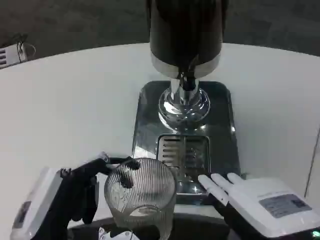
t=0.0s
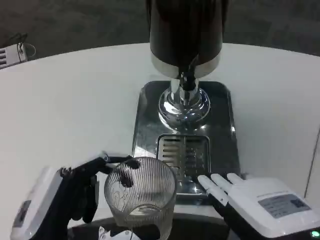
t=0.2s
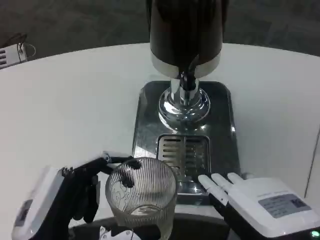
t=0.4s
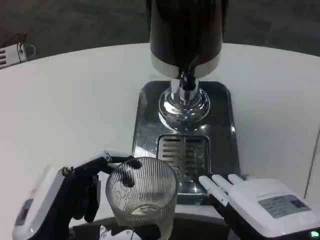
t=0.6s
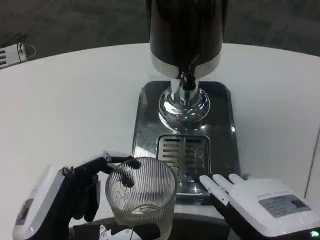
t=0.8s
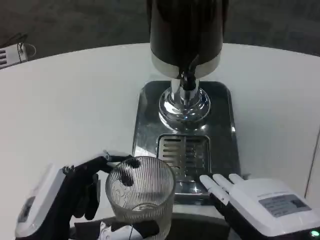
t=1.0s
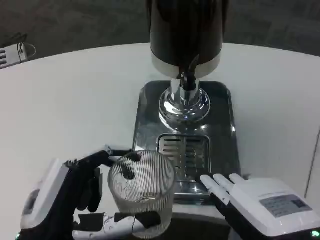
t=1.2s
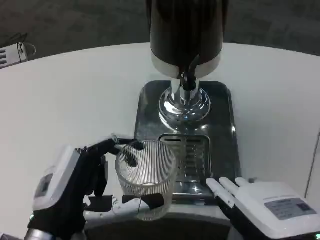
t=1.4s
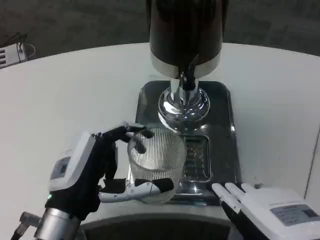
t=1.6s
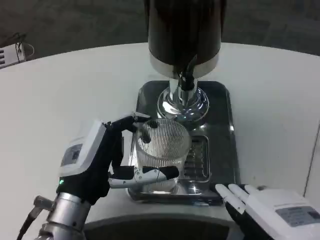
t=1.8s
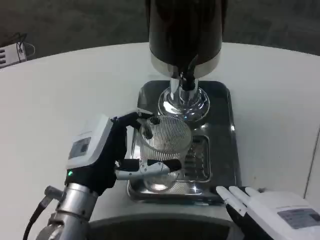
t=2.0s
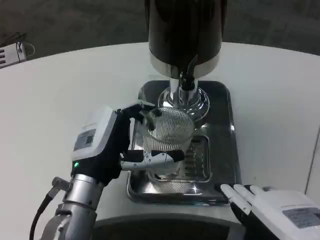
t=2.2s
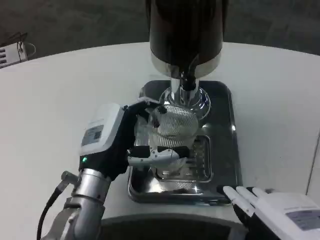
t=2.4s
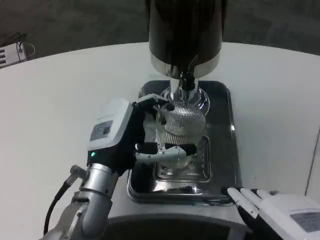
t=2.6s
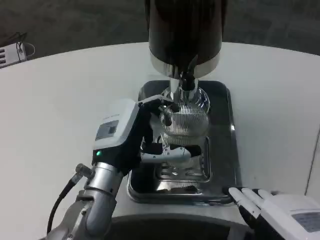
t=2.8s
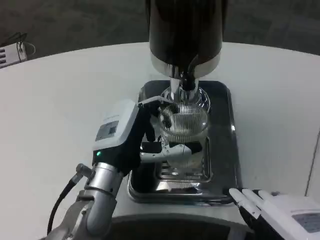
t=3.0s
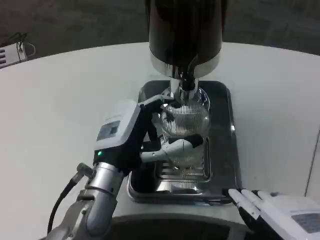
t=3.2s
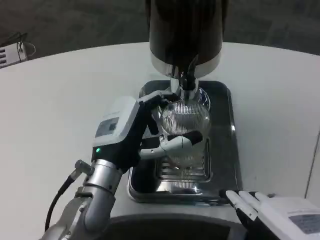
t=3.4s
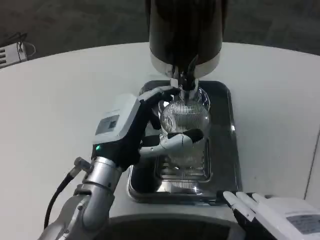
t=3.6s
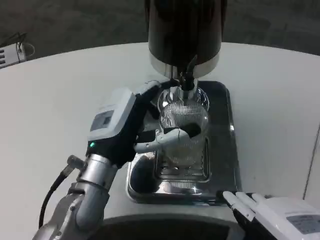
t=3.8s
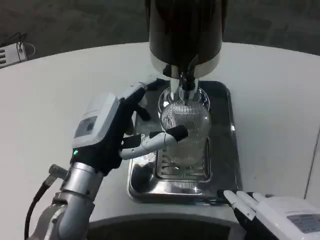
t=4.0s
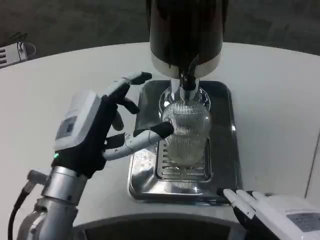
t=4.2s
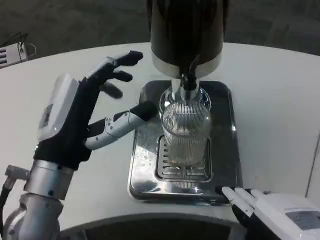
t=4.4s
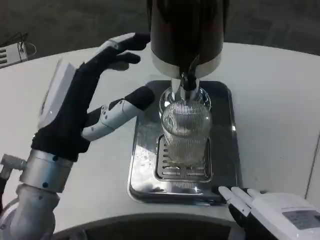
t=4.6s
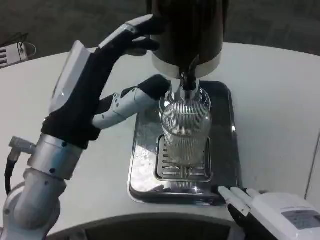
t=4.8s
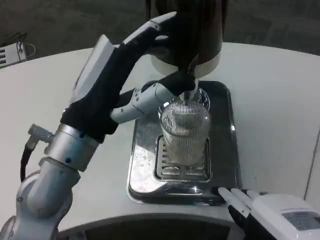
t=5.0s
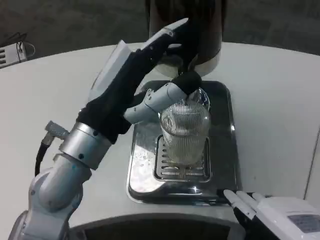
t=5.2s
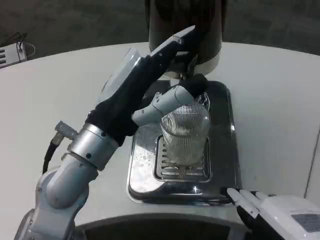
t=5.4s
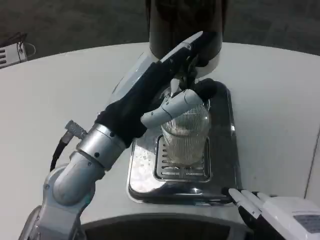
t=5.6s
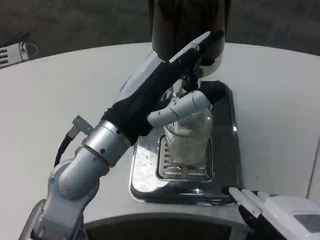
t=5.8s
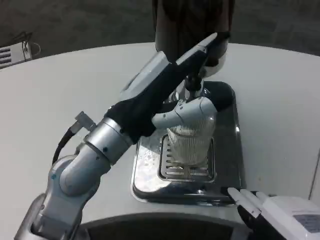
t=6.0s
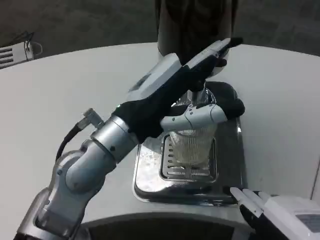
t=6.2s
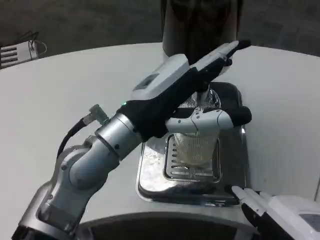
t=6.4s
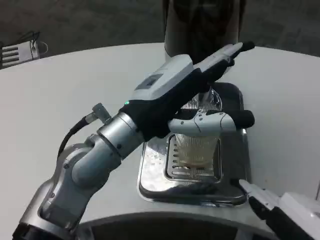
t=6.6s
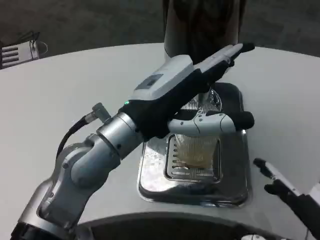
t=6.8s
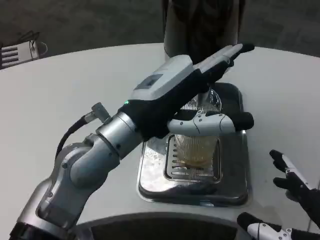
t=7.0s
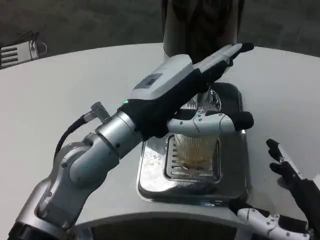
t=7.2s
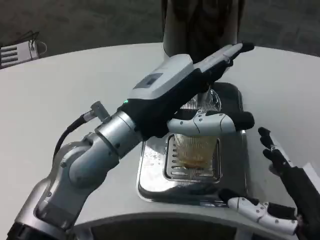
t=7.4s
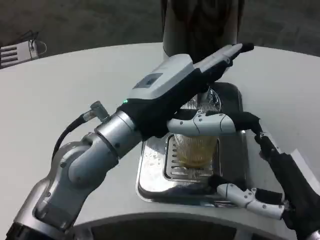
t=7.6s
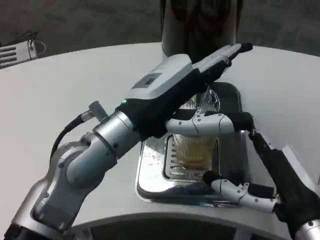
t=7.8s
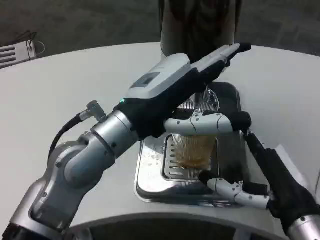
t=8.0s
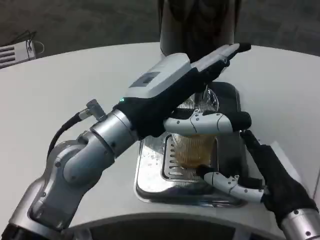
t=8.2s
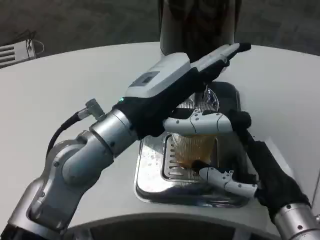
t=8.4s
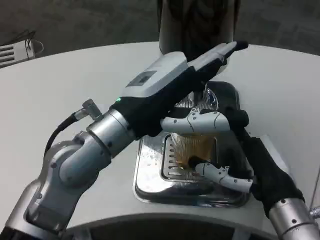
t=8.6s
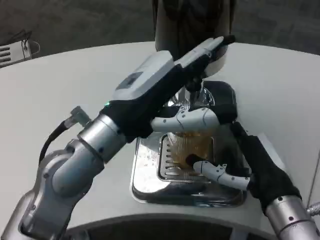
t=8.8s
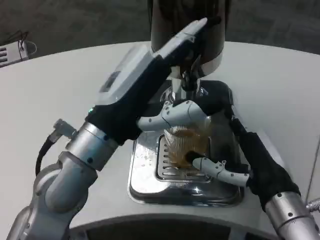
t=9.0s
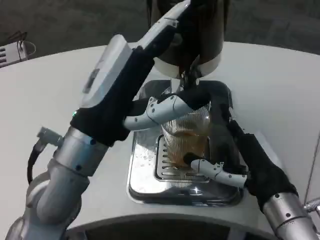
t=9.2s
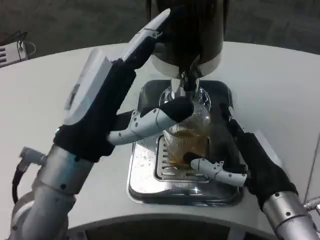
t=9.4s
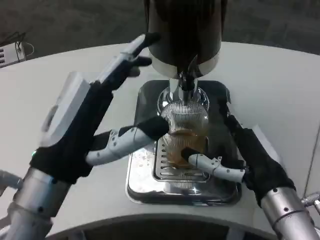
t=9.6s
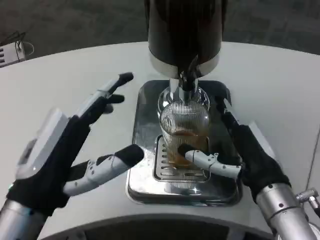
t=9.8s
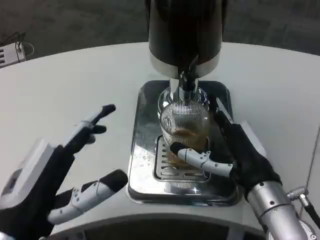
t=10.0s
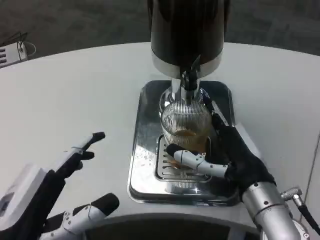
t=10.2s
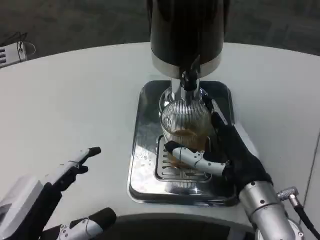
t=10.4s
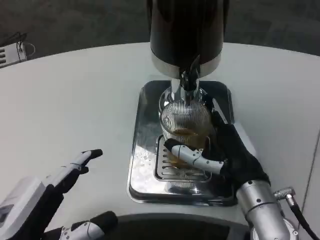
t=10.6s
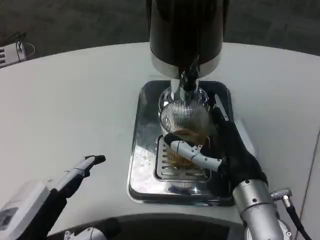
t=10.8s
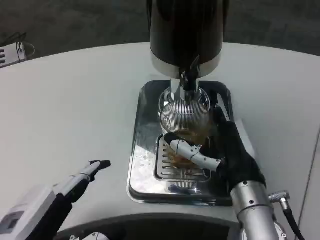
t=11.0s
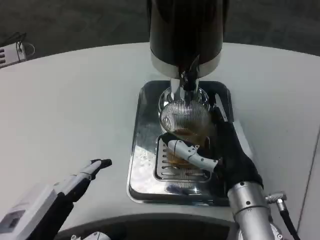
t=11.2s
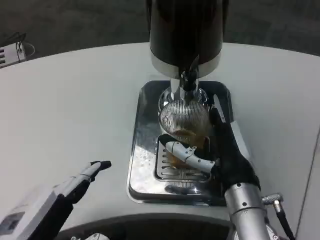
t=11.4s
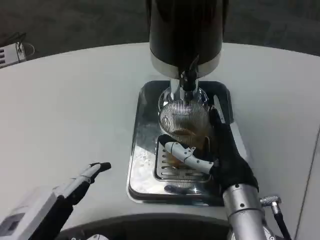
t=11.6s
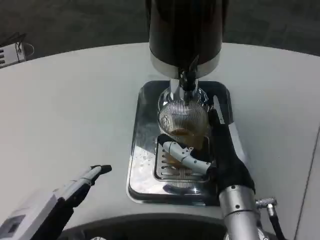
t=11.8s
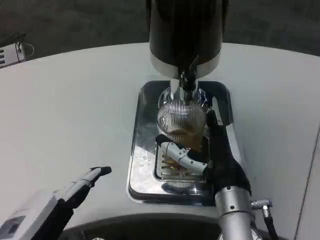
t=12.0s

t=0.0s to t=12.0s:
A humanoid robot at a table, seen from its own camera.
Task of the whole recording: Grasp the cup under the faucet to collect the drink, then remove the cup.
t=0.0s to t=1.6s: The left hand shifts about 10 cm forward.
t=1.6s to t=3.0s: The left hand is displaced forward by roughly 5 cm.
t=3.0s to t=4.4s: The left hand goes roughly 5 cm backward.
t=4.4s to t=6.0s: The left hand shifts by approximately 10 cm.
t=6.0s to t=7.6s: The right hand is displaced forward by approximately 5 cm.
t=7.6s to t=9.0s: The right hand is displaced forward by roughly 5 cm.
t=9.0s to t=10.4s: The left hand shifts some 20 cm backward, downward and to the left.
t=10.4s to t=12.0s: The hands stay close to where they were, moving slightly.

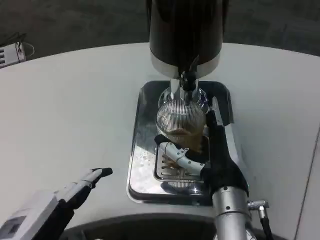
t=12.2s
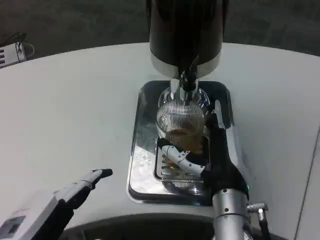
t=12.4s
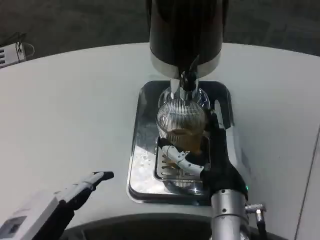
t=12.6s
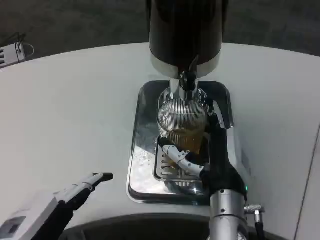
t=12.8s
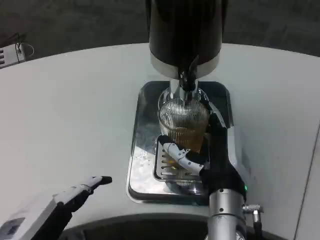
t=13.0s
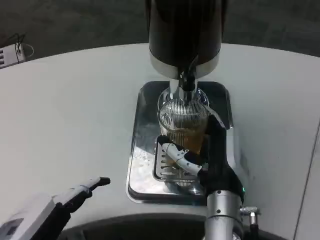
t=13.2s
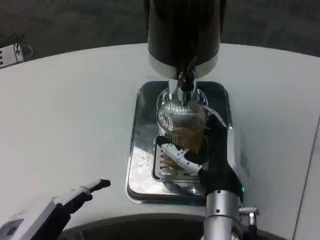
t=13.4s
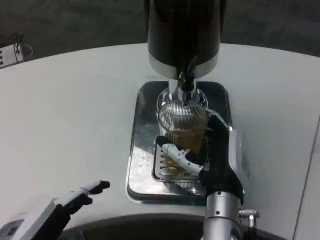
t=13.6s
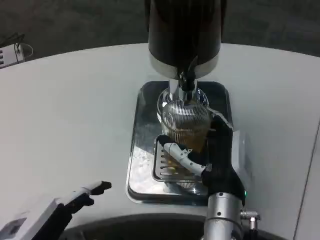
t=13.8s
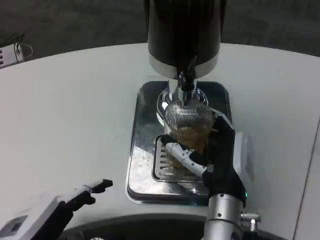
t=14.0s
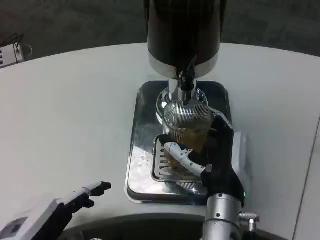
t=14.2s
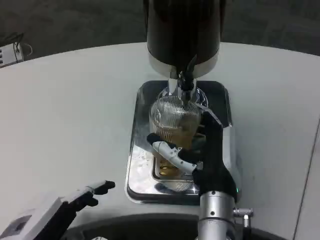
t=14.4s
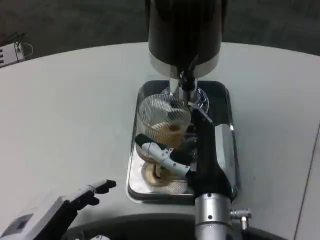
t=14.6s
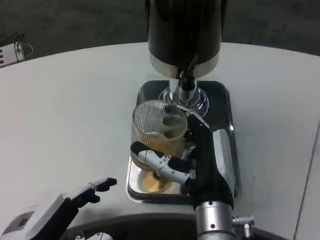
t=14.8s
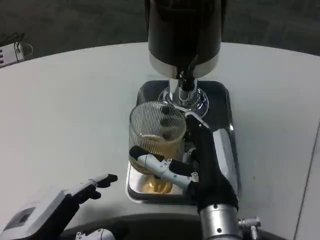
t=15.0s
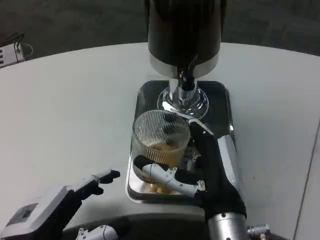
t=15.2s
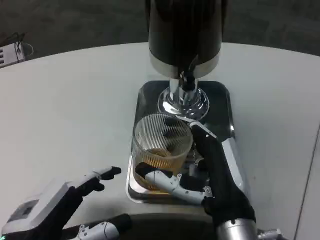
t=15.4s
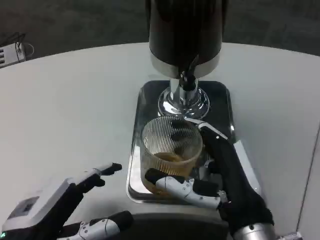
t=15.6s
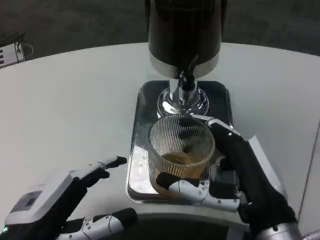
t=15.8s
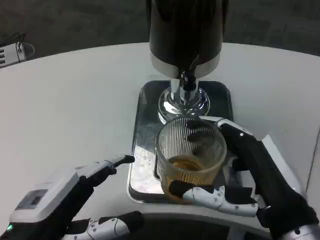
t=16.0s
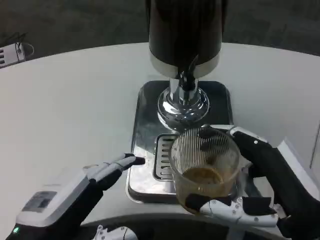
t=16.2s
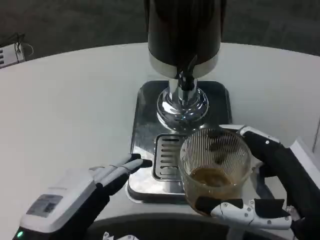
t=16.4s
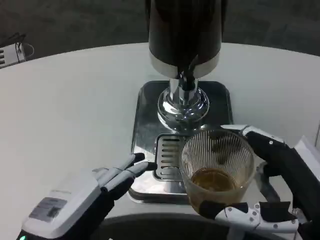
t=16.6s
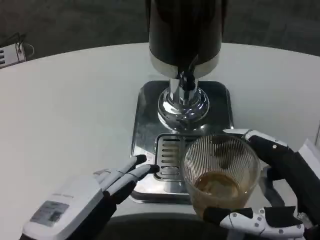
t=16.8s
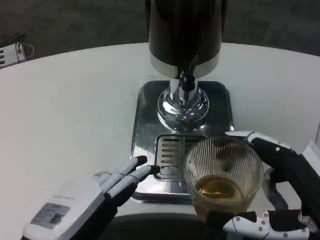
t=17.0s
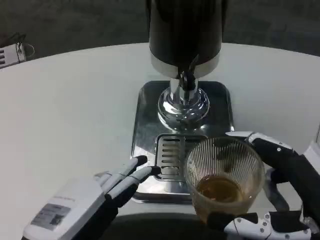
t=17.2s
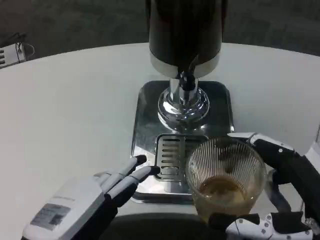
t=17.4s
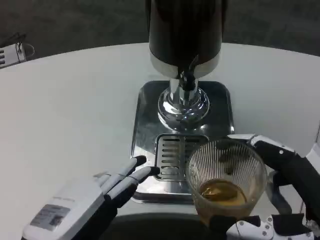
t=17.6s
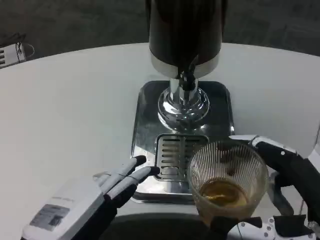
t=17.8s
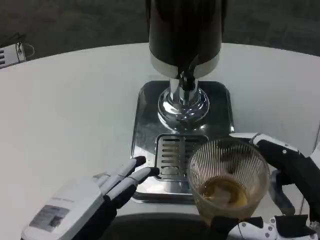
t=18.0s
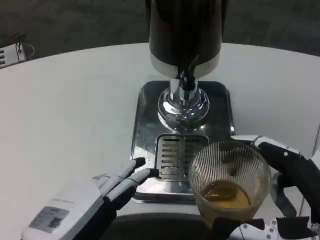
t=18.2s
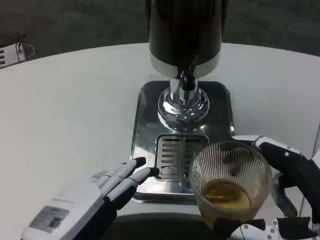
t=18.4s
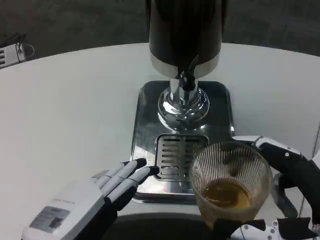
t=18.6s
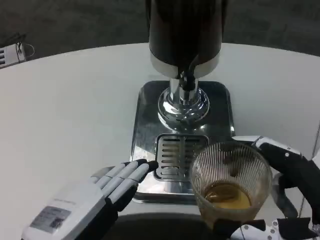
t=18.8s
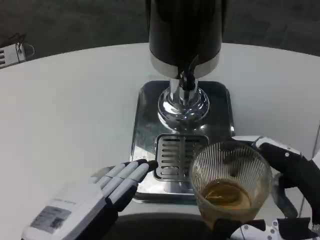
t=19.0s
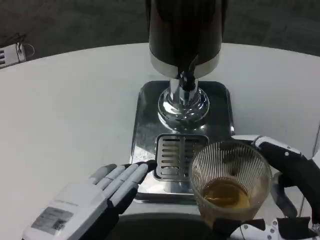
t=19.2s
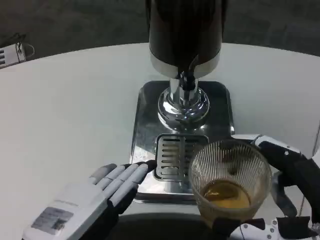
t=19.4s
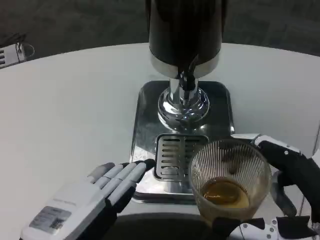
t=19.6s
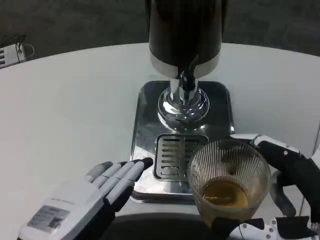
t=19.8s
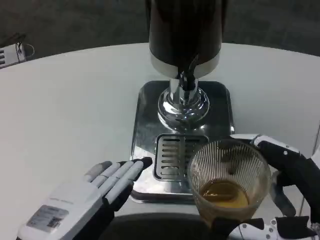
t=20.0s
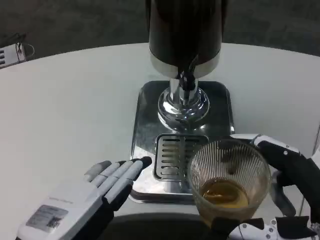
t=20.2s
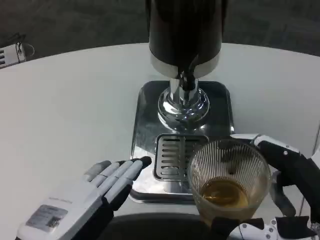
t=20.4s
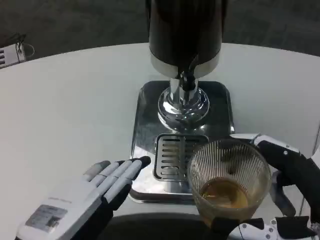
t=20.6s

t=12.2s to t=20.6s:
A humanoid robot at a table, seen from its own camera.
Task of the whole recording: Grasp the cup under the faucet to collect the drink, then remove the cup.
t=12.2s to t=15.0s: The hands stay close to where they were, moving slightly.
t=15.0s to t=16.4s: The right hand travels to the right and backward by approximately 15 cm.
t=16.4s to t=17.8s: The hands stay close to where they were, moving slightly.
t=17.8s to t=20.6s: Neither hand changes place.

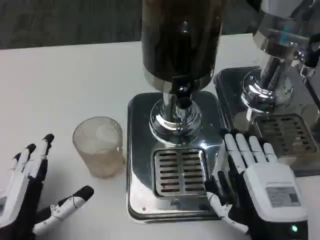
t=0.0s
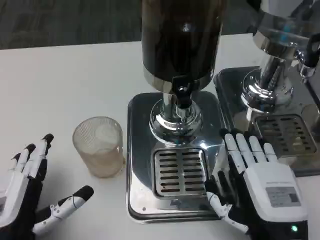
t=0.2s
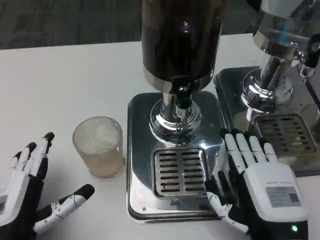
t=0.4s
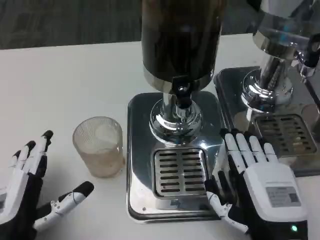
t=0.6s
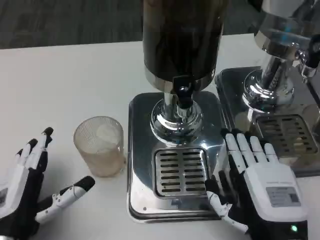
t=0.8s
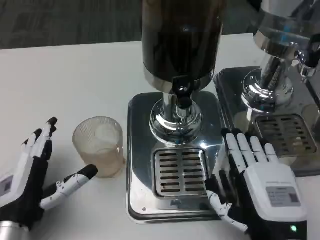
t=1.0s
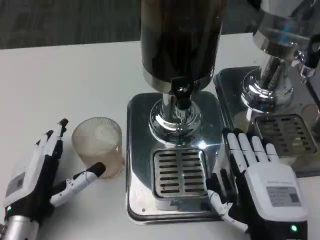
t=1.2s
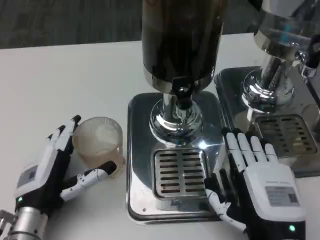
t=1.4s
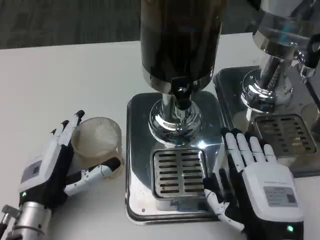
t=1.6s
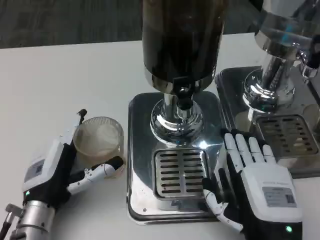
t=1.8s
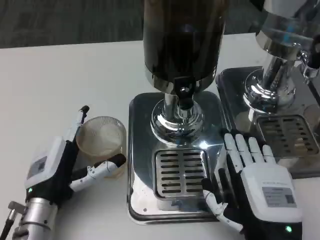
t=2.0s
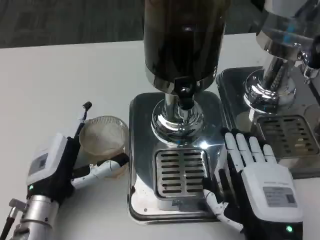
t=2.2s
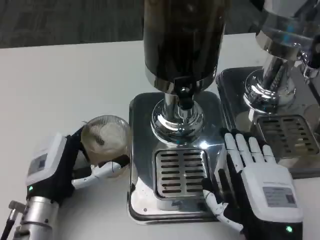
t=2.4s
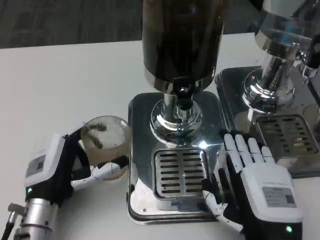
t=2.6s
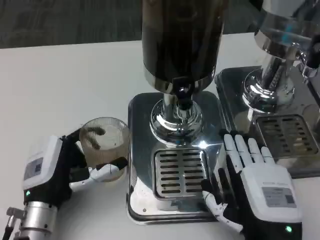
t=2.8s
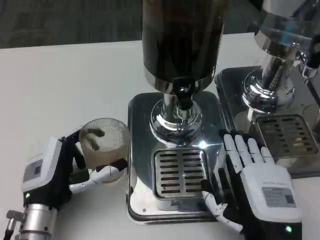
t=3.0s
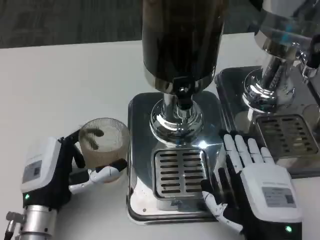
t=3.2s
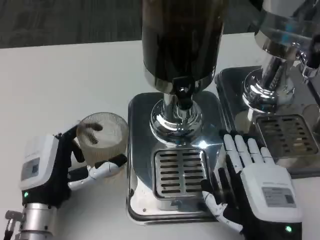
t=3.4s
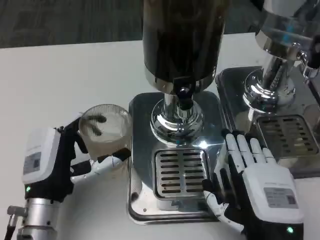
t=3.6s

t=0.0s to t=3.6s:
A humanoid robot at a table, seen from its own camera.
Task of the whole recording: Grasp the cup under the faucet to collect the drink, then remove the cup.
t=0.0s to t=1.8s: The left hand is displaced forward by about 10 cm.
t=1.8s to t=3.6s: The hands move only a little.
